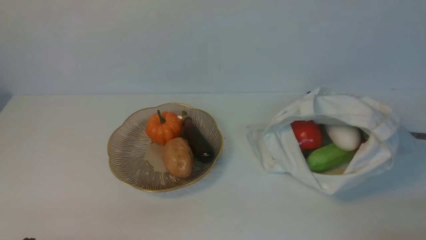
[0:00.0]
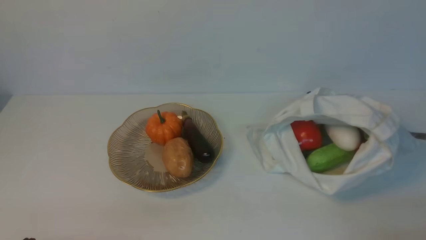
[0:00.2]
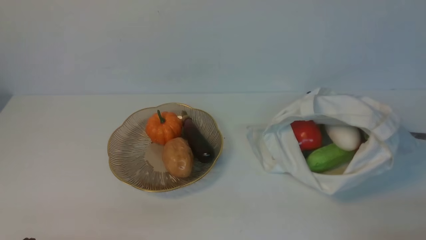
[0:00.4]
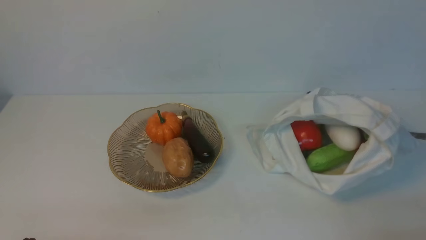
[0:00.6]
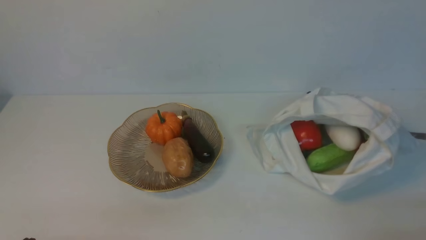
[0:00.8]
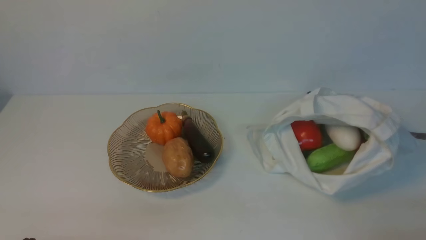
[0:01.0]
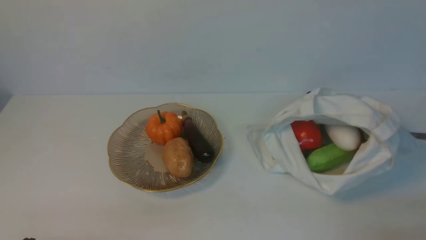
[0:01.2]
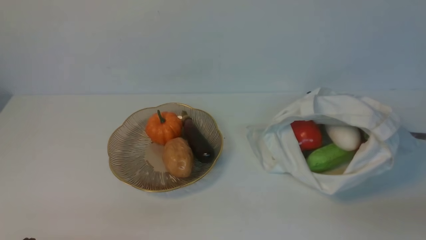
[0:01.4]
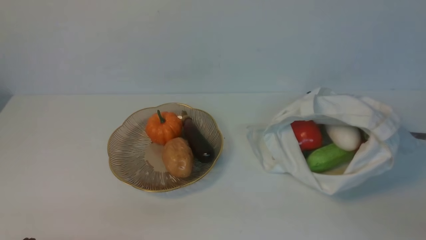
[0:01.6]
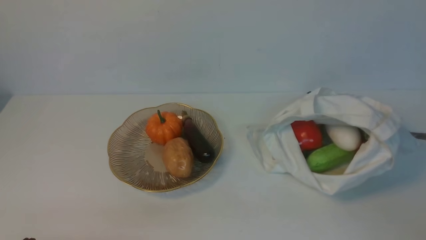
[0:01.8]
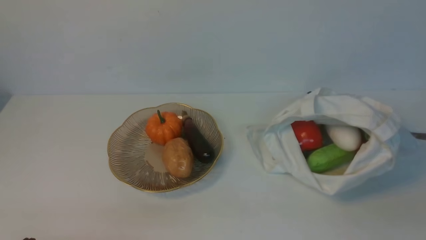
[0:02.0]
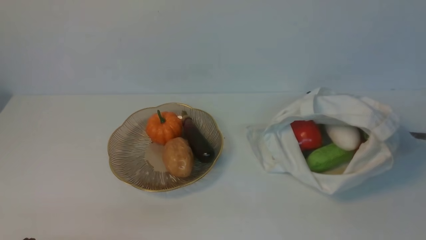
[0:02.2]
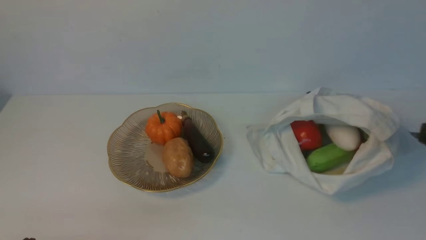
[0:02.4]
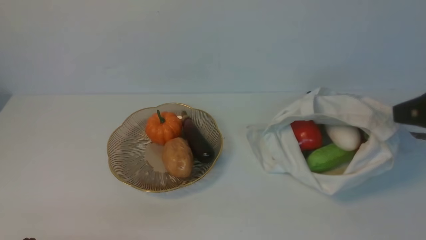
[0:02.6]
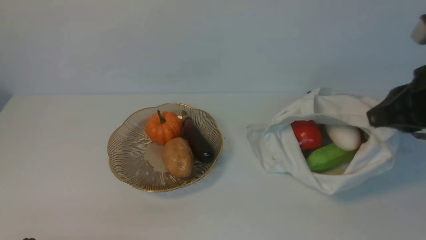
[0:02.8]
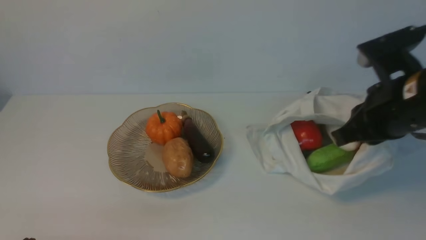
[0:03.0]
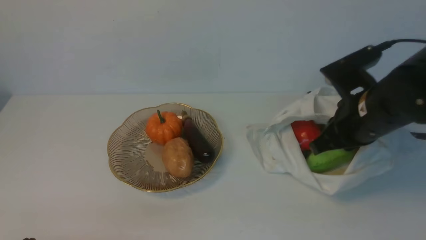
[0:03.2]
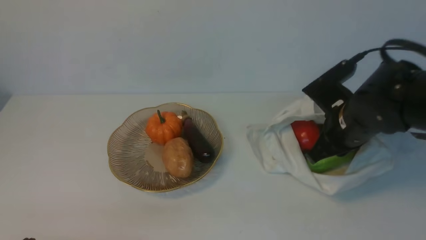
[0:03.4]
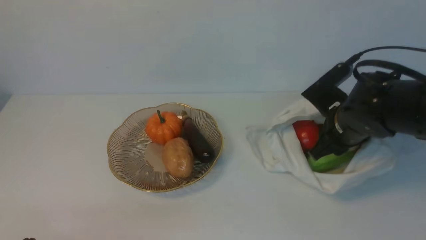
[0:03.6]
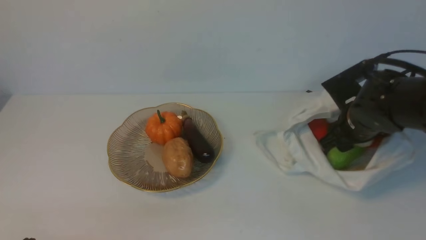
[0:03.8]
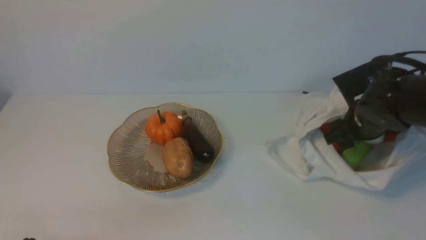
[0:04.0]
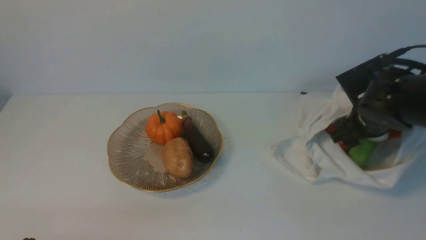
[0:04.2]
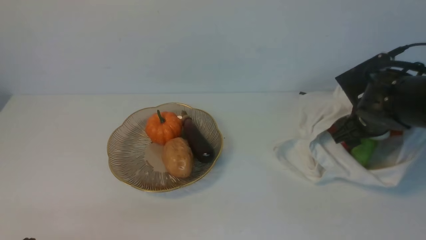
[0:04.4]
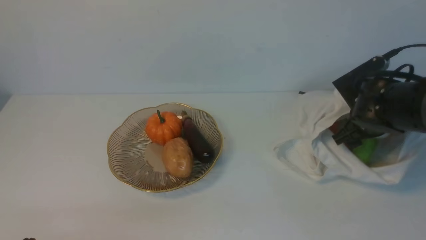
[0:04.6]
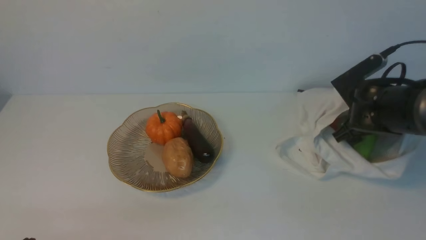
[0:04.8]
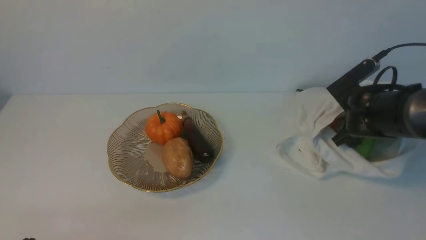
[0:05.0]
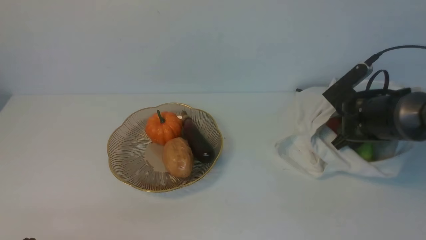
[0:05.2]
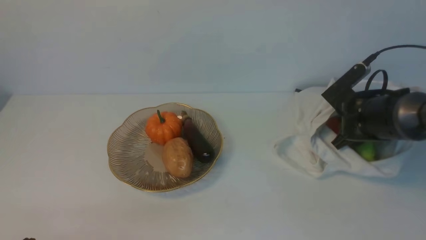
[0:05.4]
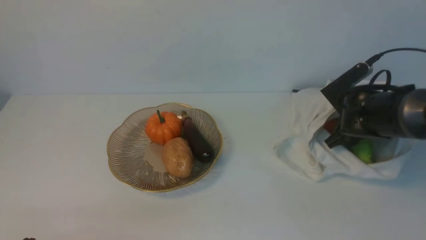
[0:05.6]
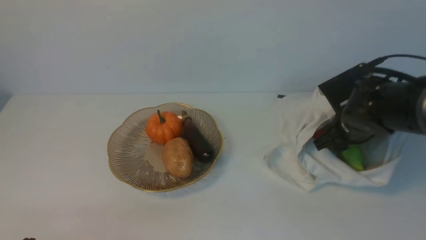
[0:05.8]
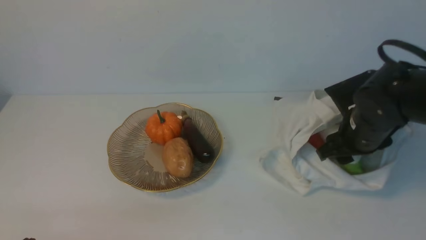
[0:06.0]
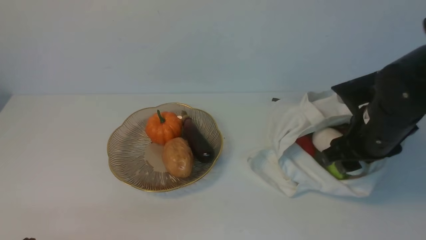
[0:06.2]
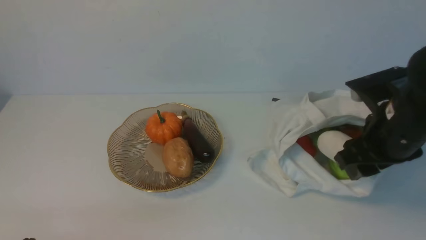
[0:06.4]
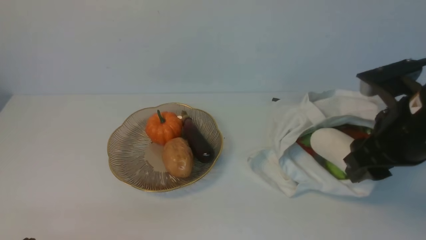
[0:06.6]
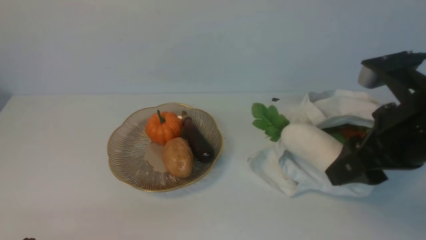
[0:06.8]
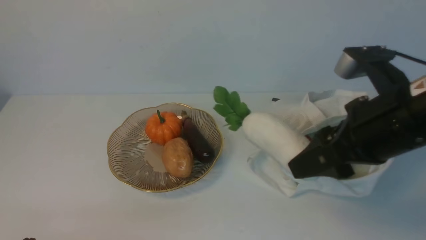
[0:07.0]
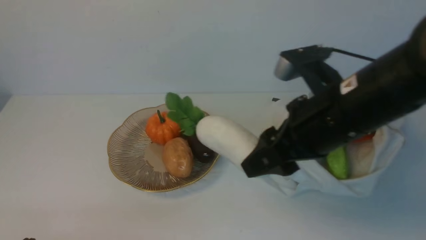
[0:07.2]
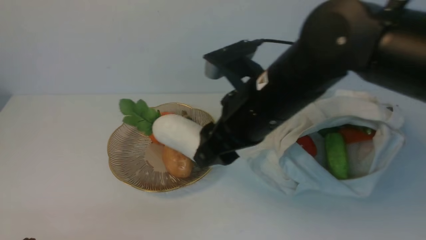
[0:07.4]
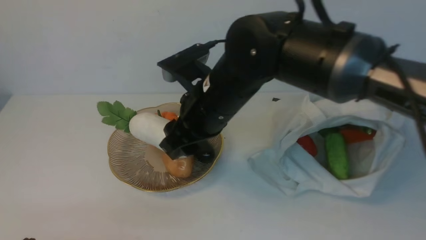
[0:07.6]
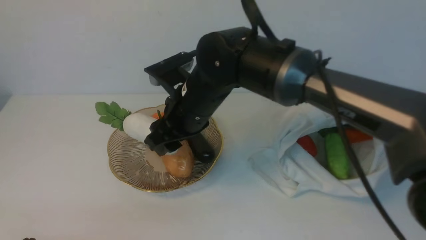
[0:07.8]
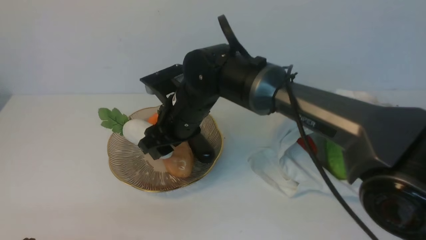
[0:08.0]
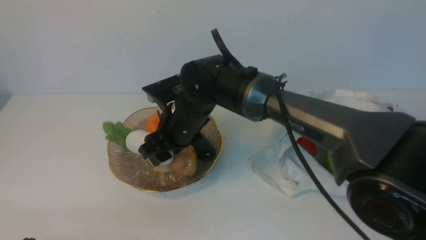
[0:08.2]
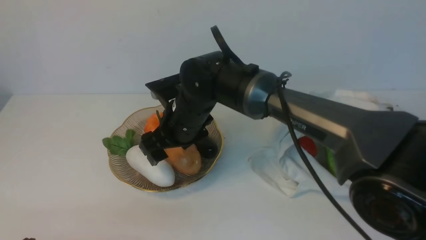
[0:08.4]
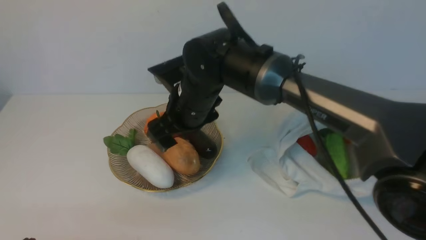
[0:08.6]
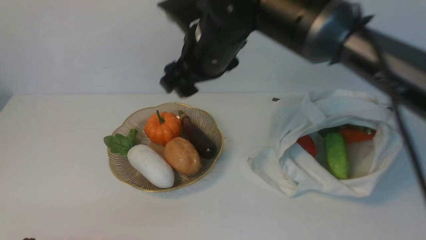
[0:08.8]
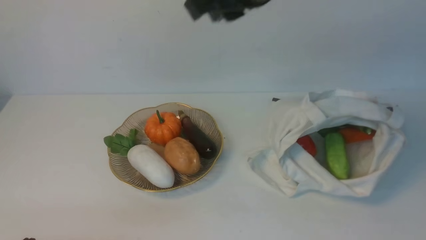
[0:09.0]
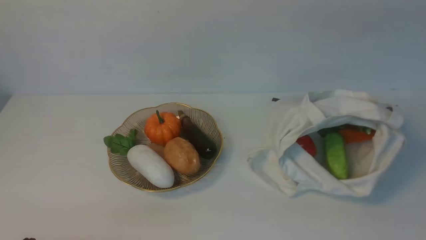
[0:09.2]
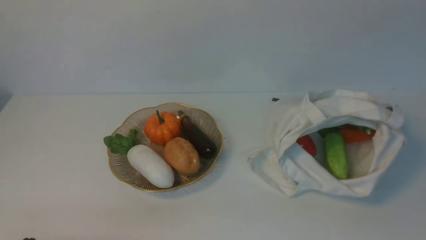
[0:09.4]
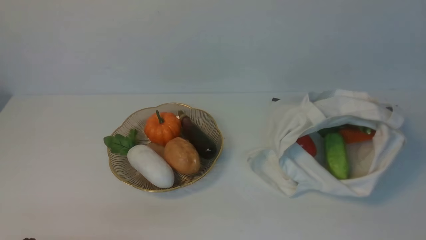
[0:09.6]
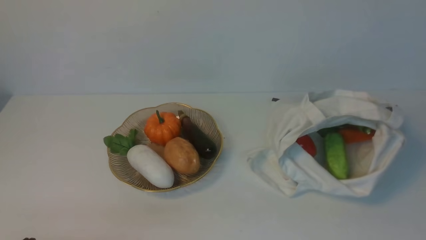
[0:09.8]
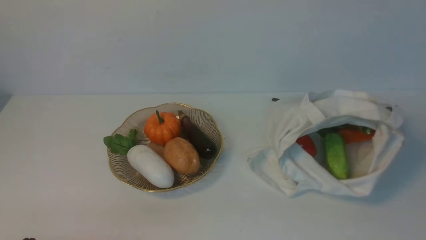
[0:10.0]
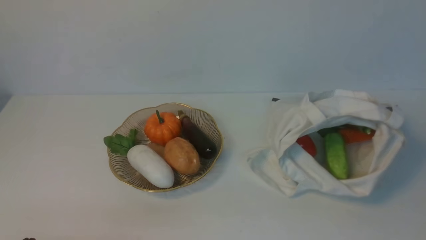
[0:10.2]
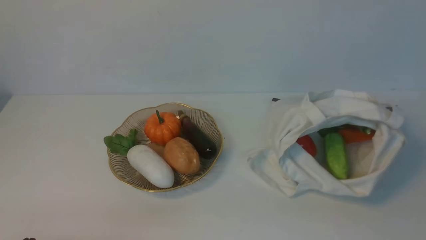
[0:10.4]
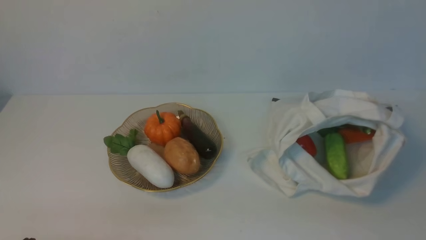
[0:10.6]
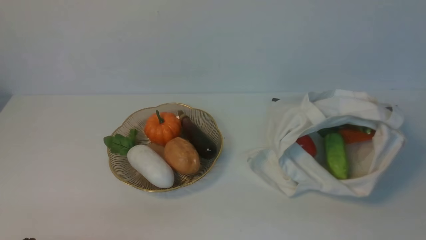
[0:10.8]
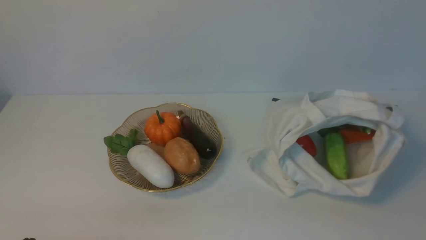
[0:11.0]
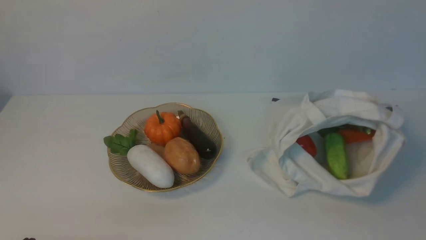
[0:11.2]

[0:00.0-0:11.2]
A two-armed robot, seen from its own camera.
Task of the whole recording: take vegetables from cloth bag on white table place on plate.
Step, 0:00.0 to 0:04.6: Grasp the radish with right gripper.
Step, 0:04.8 to 0:08.4: Place the radish on the plate with right gripper.
0:01.6 to 0:03.2: The right gripper is displaced forward and to the left by roughly 25 cm.
0:03.2 to 0:04.8: The right gripper moves downward and forward, about 15 cm, and opens up.
0:04.8 to 0:06.4: The right gripper heads backward and upward, covering some 15 cm.
0:06.4 to 0:08.0: The right gripper heads to the left, covering roughly 25 cm.
0:08.0 to 0:09.6: The right gripper travels upward, to the right and backward by some 50 cm, and closes its fingers.

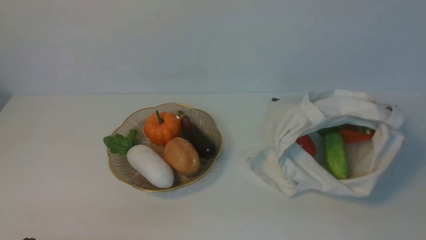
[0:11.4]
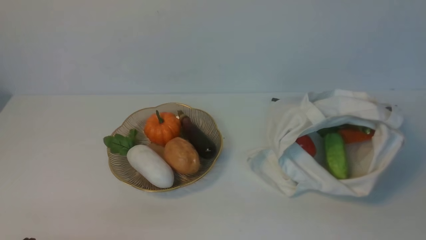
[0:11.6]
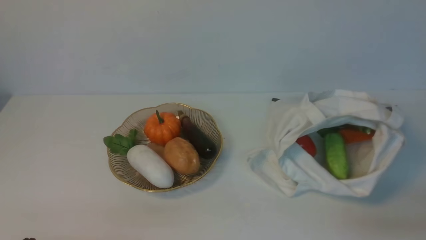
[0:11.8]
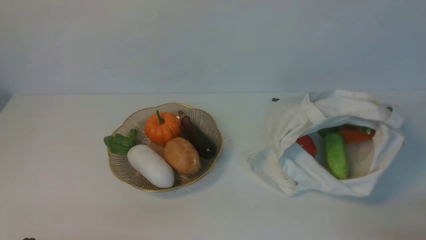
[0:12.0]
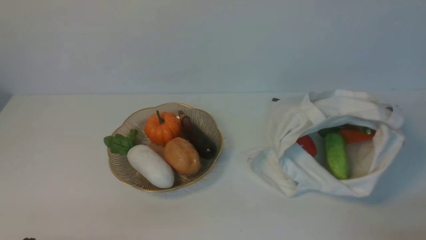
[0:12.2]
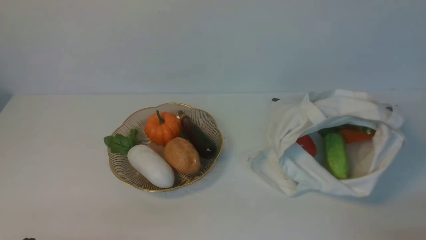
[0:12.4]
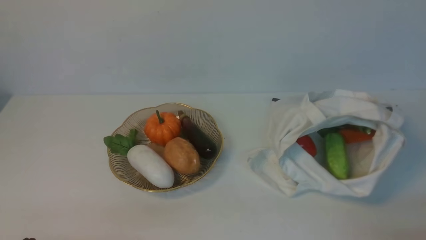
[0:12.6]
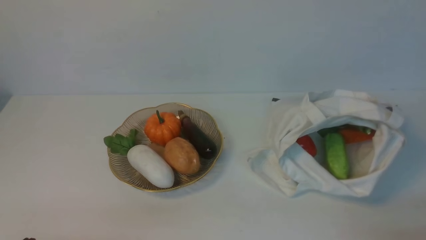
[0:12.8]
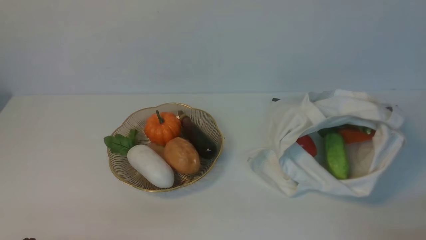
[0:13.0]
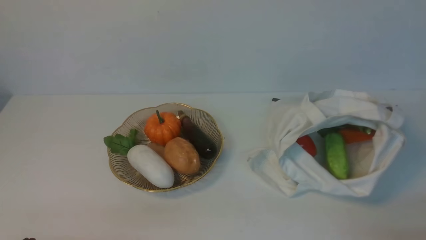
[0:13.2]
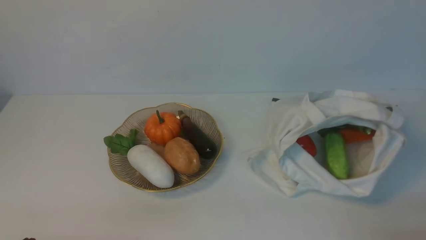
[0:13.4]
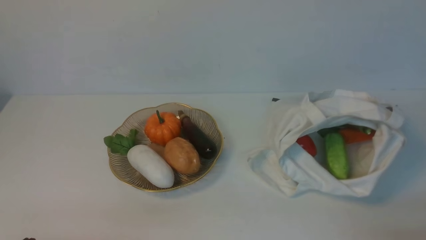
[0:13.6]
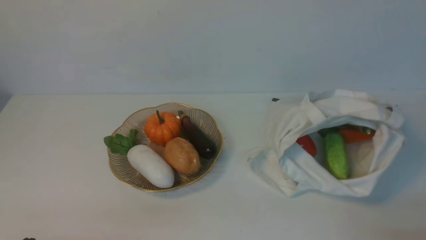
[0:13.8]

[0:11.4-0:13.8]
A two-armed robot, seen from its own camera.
Task of the whole recording: take vegetables from cloth bag on white table place on plate.
0:12.6 to 0:13.8: Neither gripper changes place.

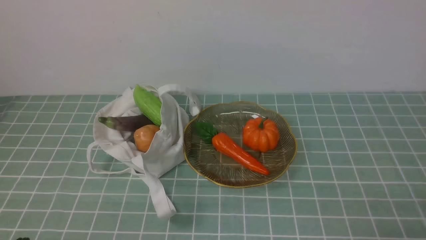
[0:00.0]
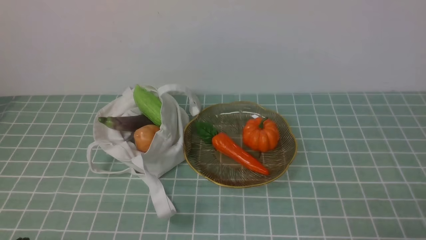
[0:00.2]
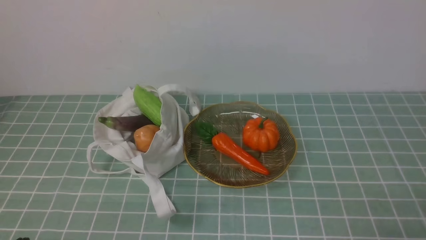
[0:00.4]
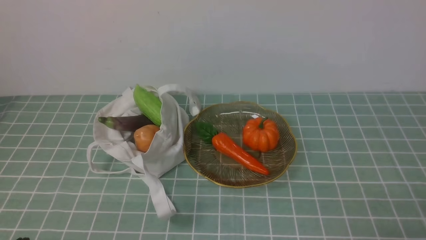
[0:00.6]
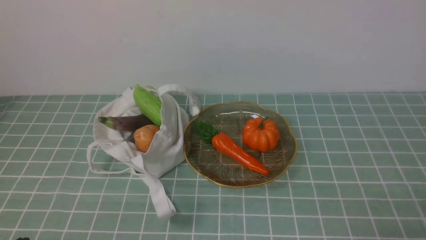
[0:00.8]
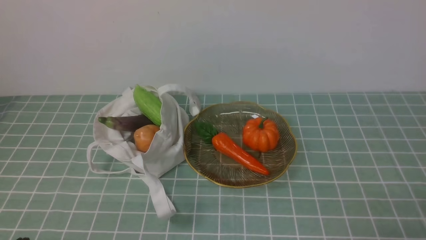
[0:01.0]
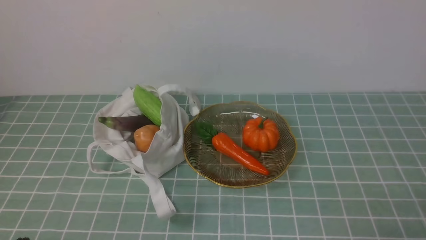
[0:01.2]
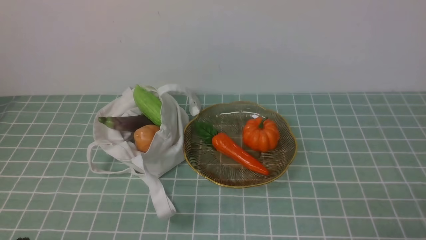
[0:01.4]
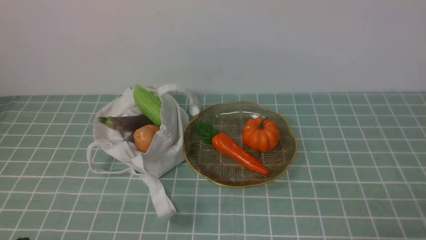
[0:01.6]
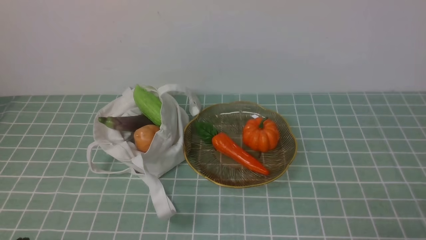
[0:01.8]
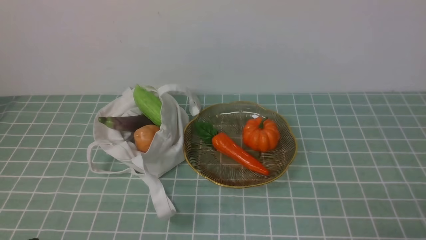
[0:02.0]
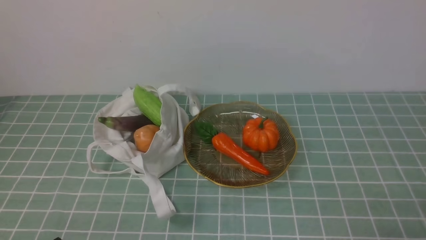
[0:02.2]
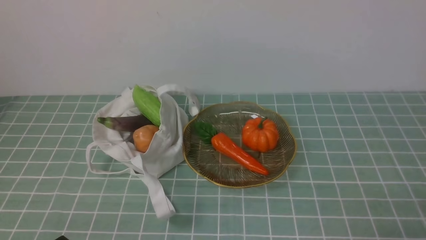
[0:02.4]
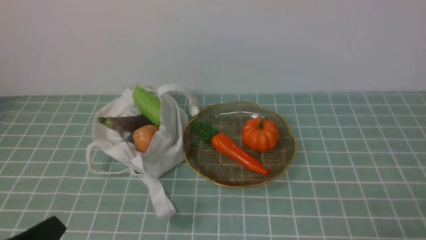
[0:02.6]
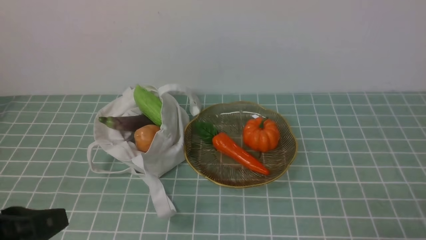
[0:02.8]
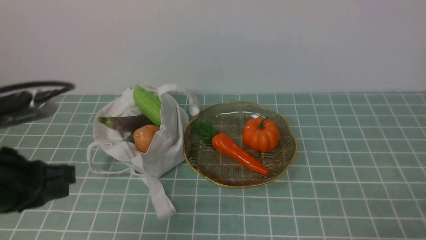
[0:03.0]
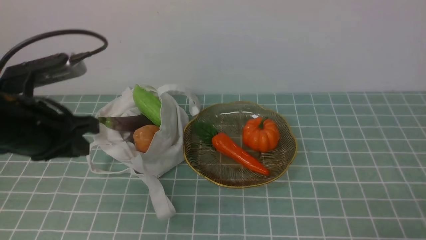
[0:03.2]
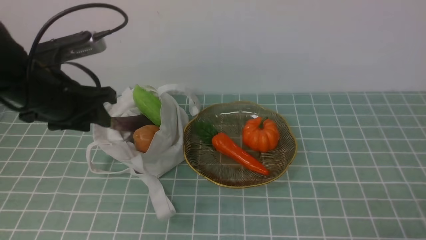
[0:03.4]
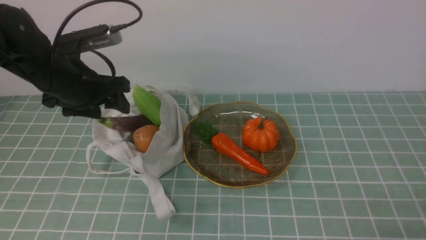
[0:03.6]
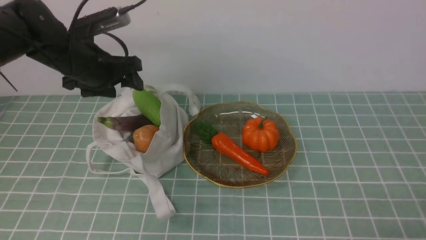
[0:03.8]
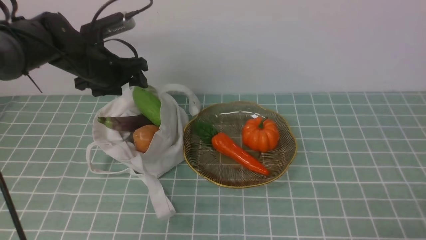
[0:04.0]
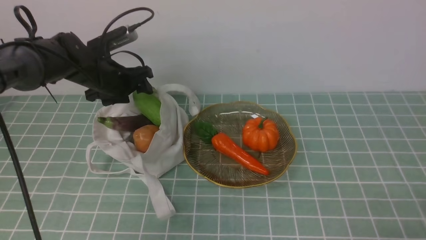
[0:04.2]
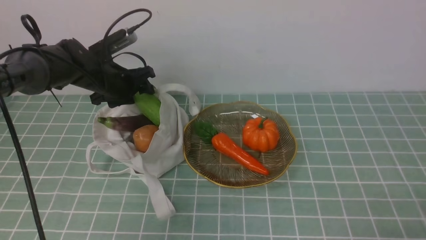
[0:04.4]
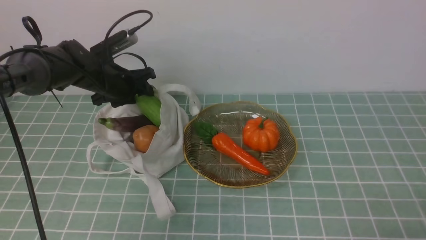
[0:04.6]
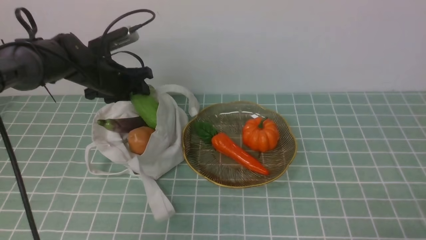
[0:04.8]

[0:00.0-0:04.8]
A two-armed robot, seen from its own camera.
Task of the whole recording: take vegetables from cloth bag on blue coffee tablecloth place on plate.
Step, 0:00.0 to 0:04.4: Grasp the bitter melon with left gripper.
0:01.6 to 0:03.2: The left gripper shifts about 20 cm forward and upward.
0:03.2 to 0:04.8: The left gripper moves forward, some 25 cm, and opens its fingers.
